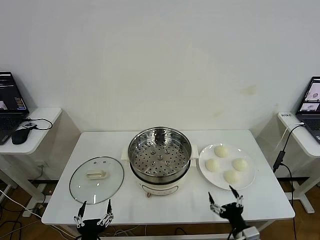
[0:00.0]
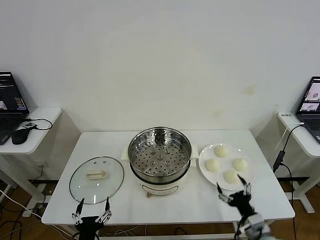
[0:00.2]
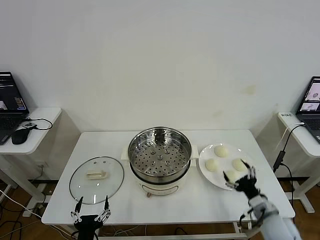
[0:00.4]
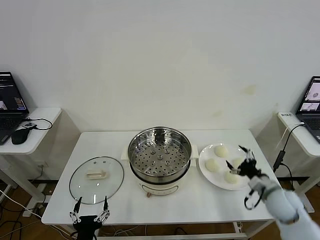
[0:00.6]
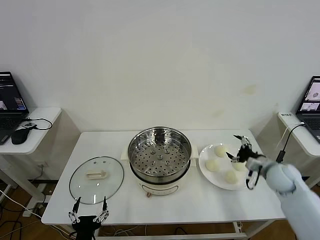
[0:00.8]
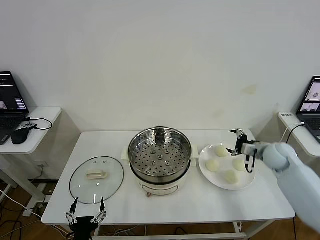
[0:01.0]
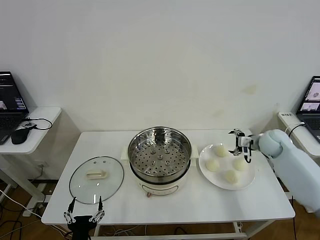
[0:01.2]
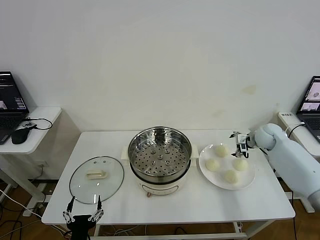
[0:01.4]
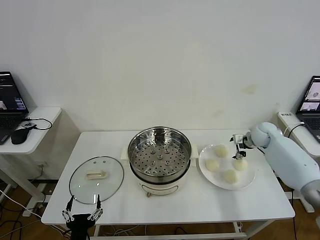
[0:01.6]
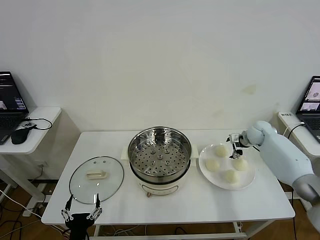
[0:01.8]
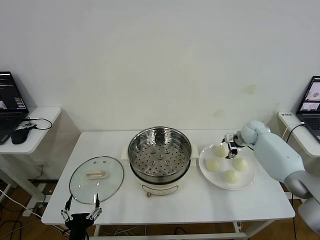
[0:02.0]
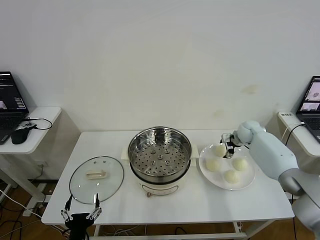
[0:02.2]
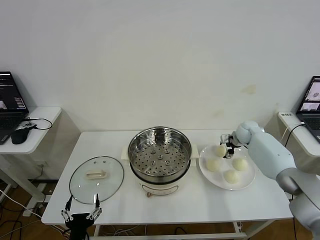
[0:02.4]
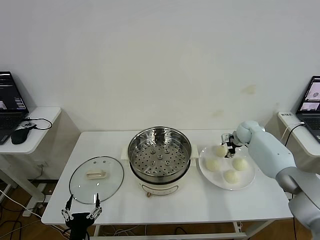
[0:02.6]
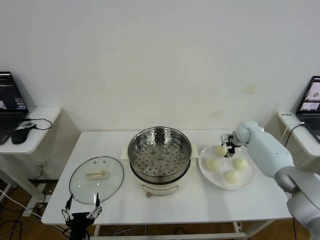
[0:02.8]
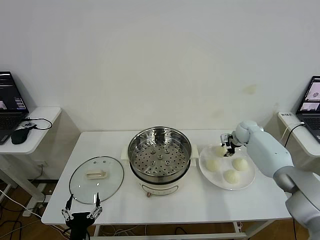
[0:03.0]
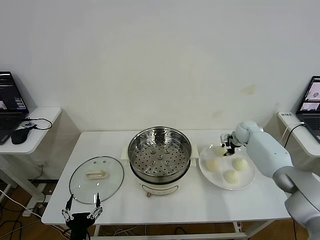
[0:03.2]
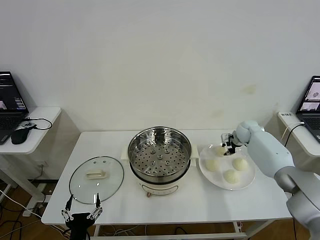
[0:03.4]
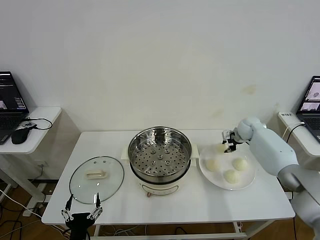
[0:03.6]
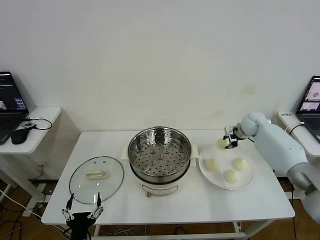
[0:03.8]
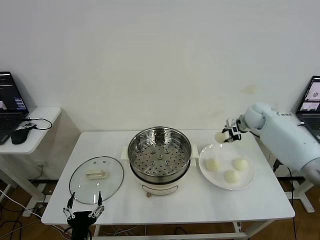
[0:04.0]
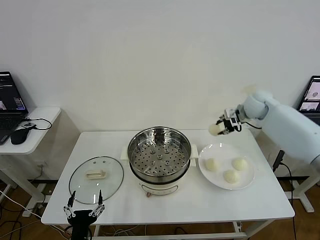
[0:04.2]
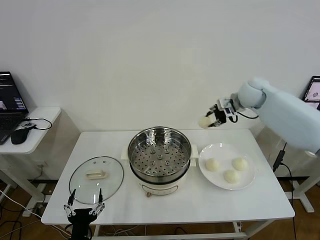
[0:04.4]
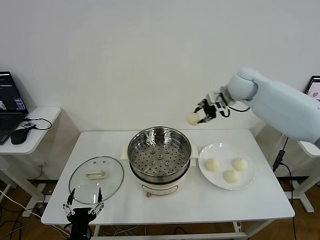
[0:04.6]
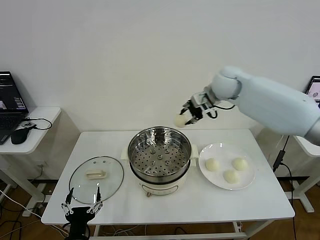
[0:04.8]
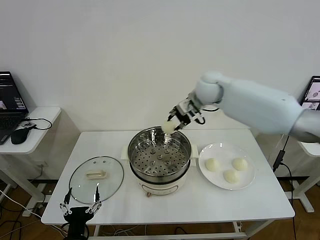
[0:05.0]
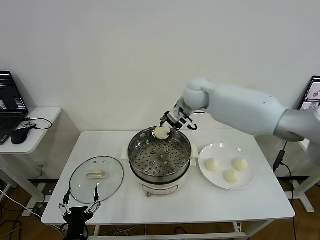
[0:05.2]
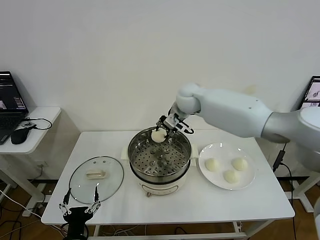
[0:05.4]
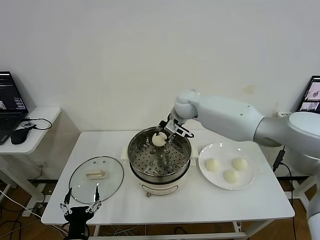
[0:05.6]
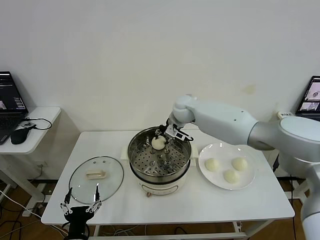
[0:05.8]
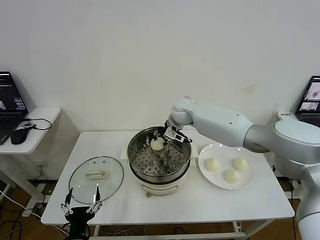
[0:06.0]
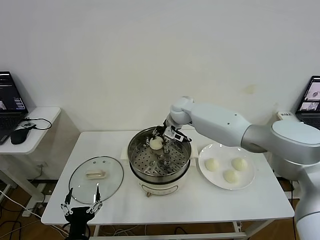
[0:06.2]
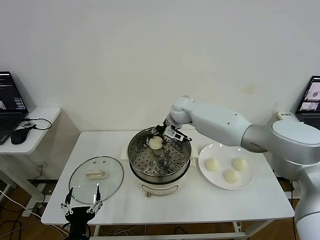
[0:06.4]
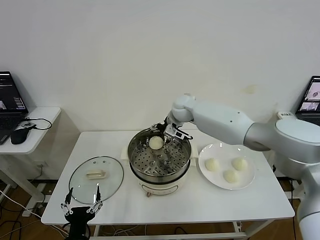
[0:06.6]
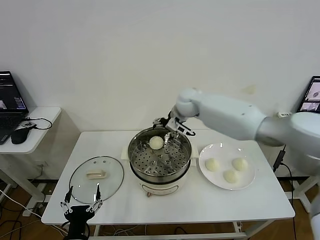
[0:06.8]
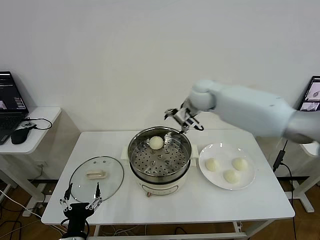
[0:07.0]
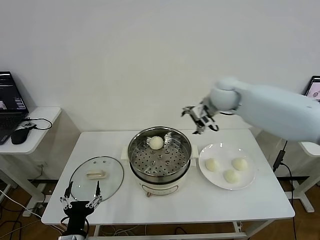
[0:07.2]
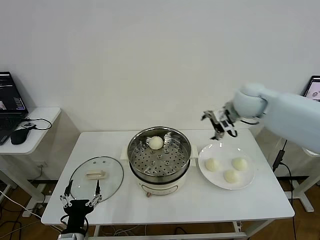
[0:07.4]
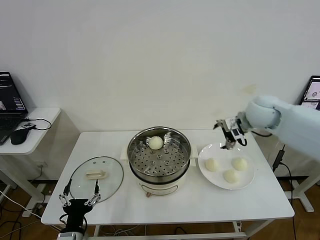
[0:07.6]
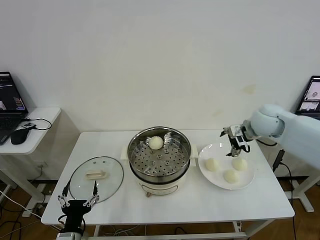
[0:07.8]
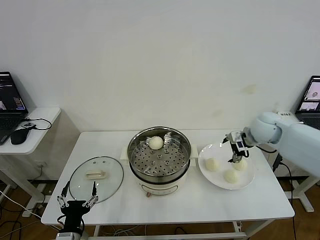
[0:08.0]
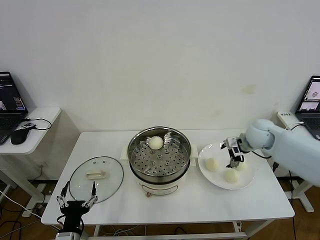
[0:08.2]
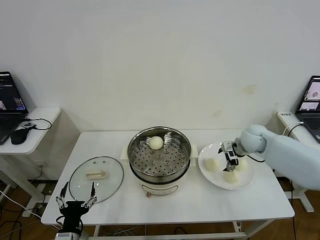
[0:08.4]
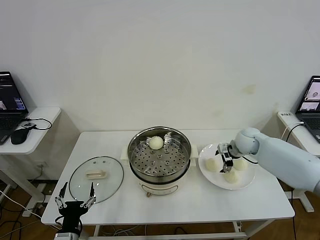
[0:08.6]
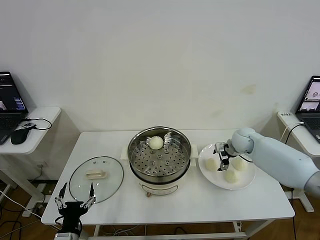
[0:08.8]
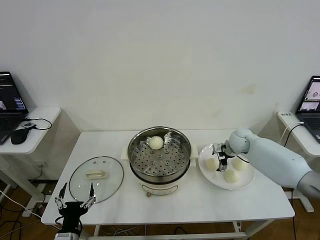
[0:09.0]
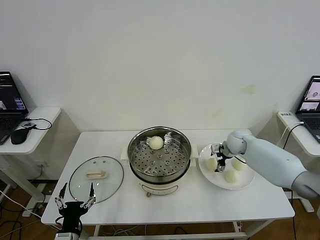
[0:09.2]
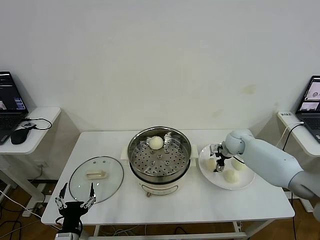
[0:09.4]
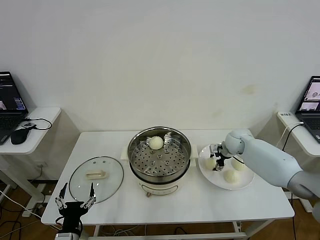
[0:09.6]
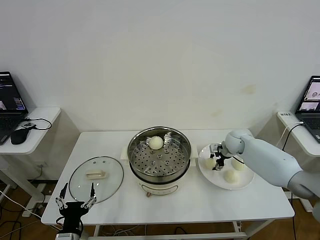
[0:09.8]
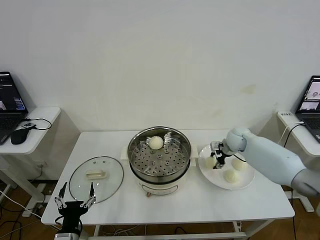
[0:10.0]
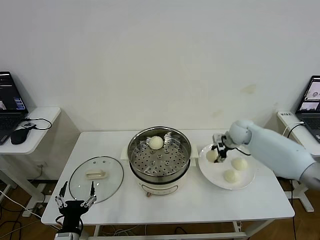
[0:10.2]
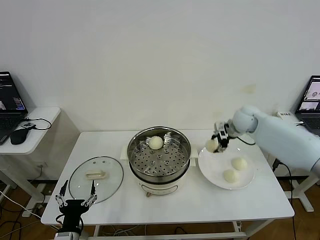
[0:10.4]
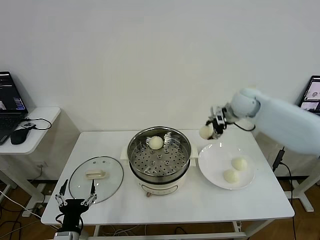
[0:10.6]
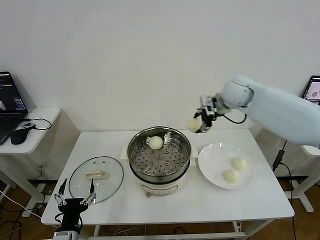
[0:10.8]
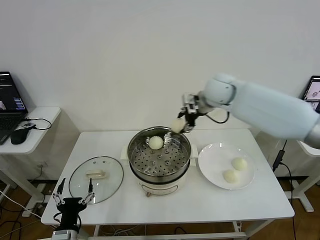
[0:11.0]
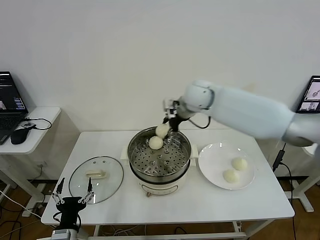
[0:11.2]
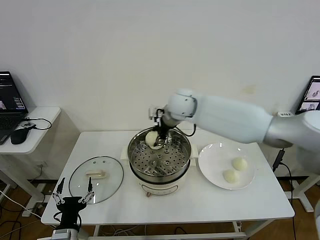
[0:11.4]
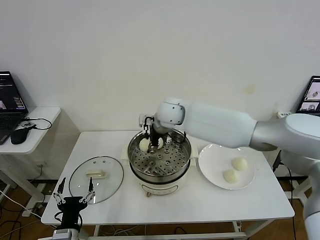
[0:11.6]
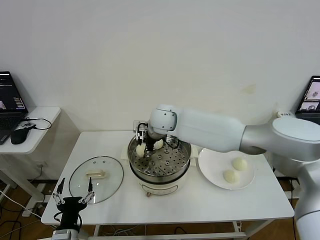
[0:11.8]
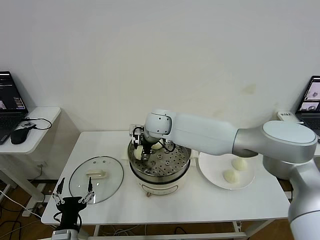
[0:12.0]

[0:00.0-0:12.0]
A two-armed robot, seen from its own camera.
Step, 0:00.0 to 0:03.2: Grasp the baozi in the plate with right gripper.
Step, 0:03.4 to 0:06.4: Place the baozi on the steamer with right gripper.
Step, 0:06.6 to 0:09.8: Grasp the baozi in the plate with right gripper.
0:01.6 to 0:03.0: The right gripper moves approximately 5 cm, and closes up.
0:03.0 to 0:04.4: The right gripper goes some 20 cm upward.
0:04.4 to 0:06.0: The right gripper goes roughly 25 cm to the left and downward.
0:06.0 to 0:07.6: The right gripper is displaced to the right and backward by approximately 25 cm, and opens its fingers.
0:07.6 to 0:09.0: The right gripper goes roughly 20 cm downward.
0:09.0 to 0:10.4: The right gripper is displaced upward by roughly 10 cm, and closes its fingers.
0:10.4 to 0:12.0: The right gripper goes about 30 cm to the left.

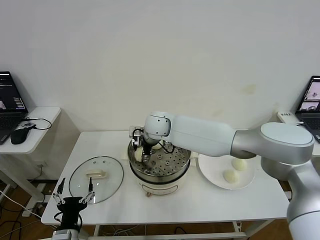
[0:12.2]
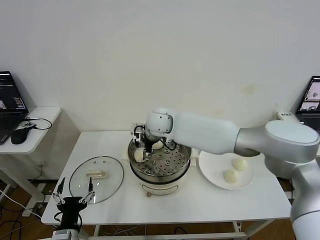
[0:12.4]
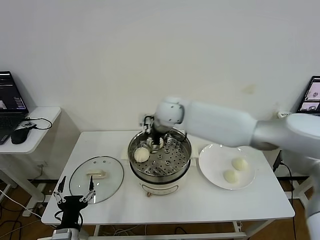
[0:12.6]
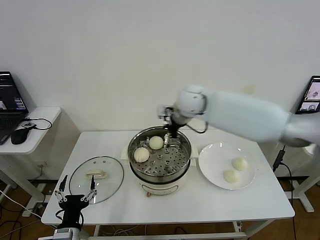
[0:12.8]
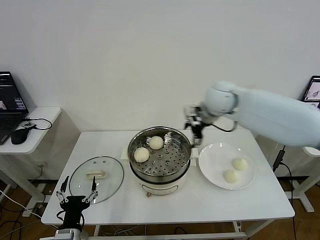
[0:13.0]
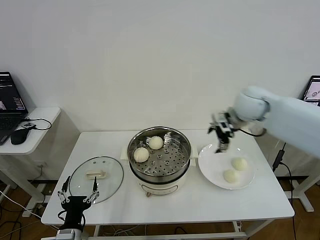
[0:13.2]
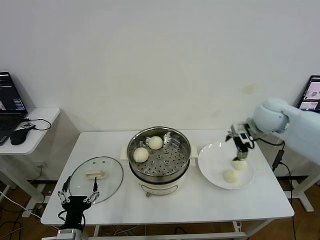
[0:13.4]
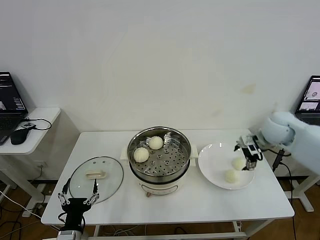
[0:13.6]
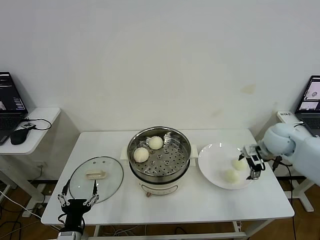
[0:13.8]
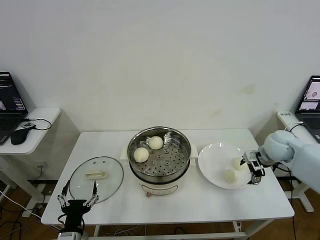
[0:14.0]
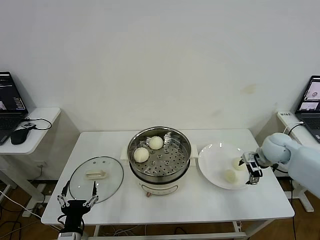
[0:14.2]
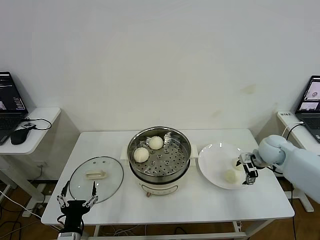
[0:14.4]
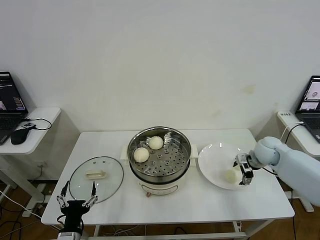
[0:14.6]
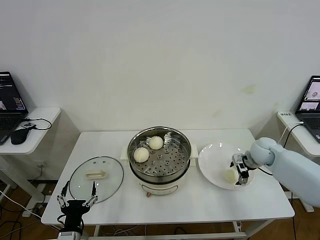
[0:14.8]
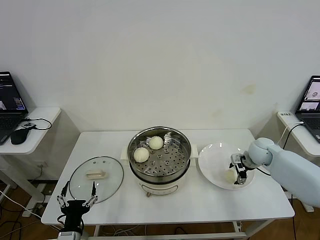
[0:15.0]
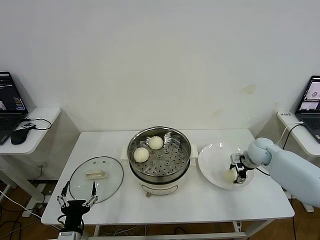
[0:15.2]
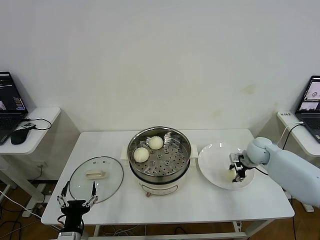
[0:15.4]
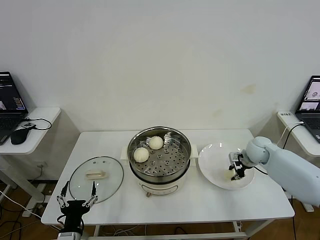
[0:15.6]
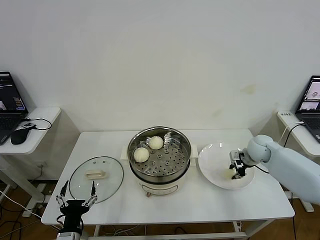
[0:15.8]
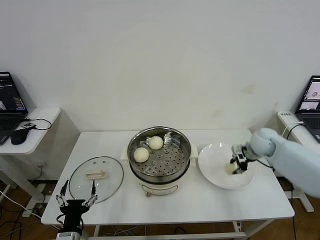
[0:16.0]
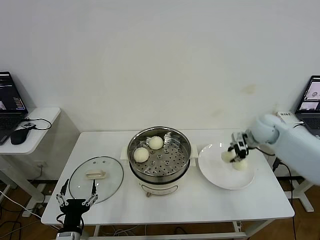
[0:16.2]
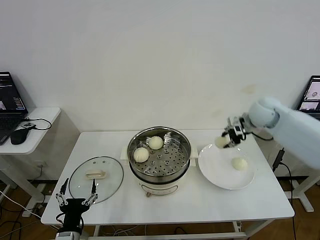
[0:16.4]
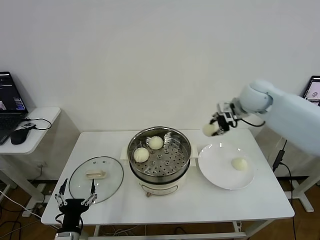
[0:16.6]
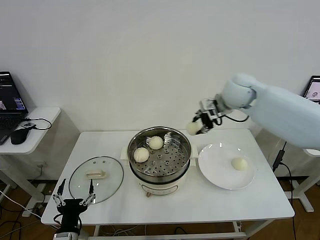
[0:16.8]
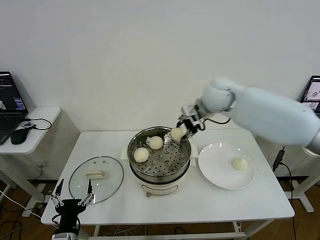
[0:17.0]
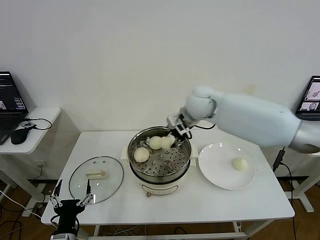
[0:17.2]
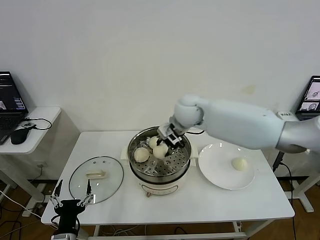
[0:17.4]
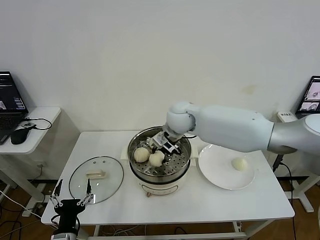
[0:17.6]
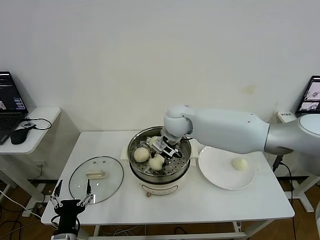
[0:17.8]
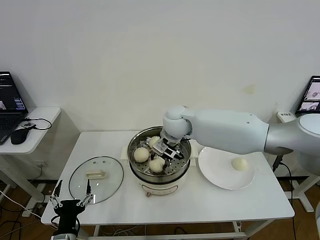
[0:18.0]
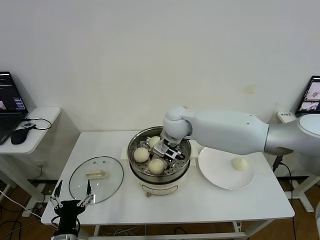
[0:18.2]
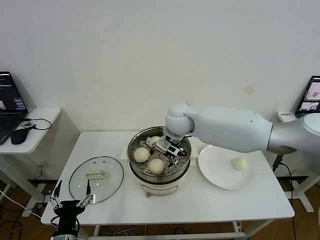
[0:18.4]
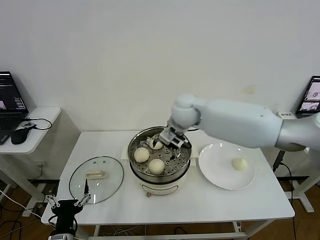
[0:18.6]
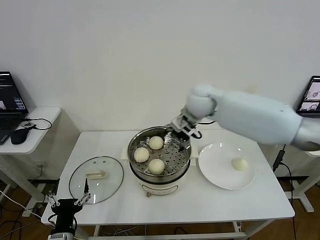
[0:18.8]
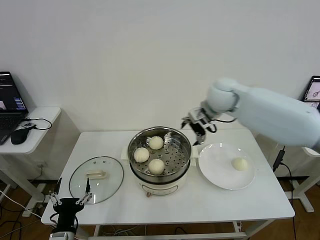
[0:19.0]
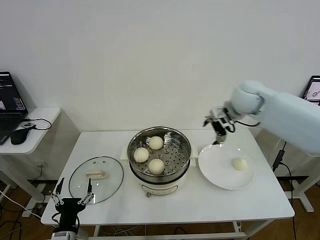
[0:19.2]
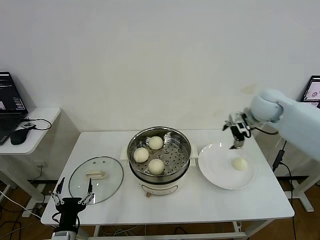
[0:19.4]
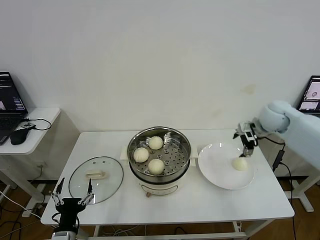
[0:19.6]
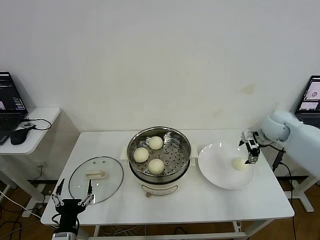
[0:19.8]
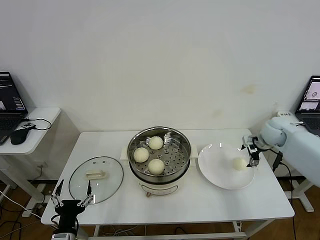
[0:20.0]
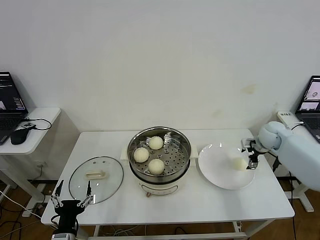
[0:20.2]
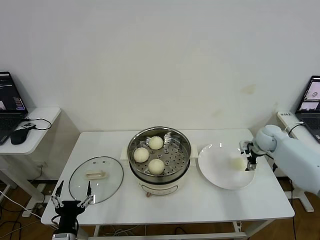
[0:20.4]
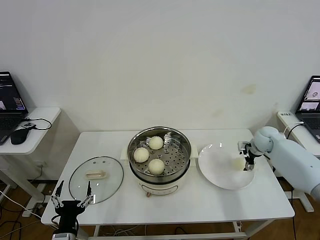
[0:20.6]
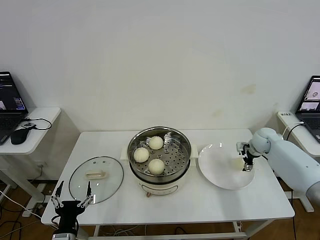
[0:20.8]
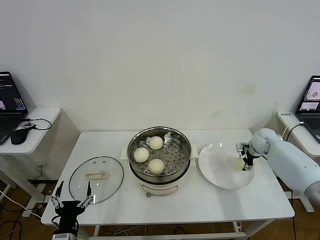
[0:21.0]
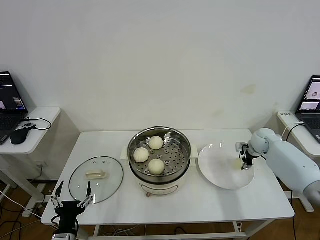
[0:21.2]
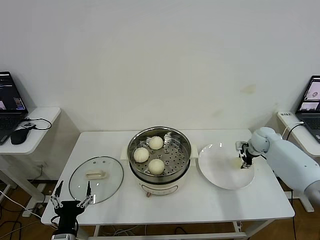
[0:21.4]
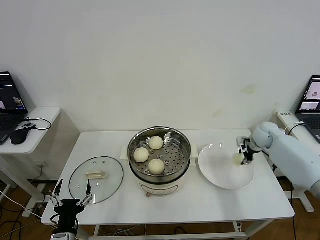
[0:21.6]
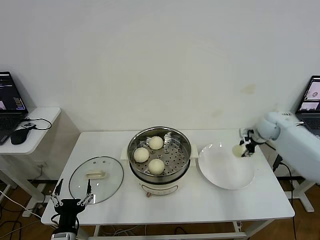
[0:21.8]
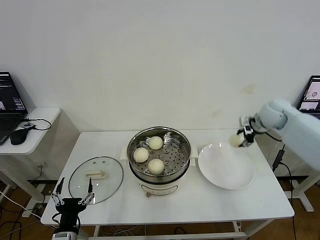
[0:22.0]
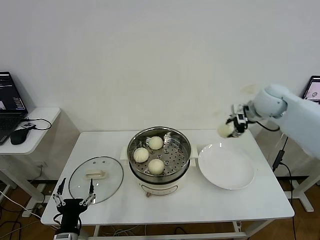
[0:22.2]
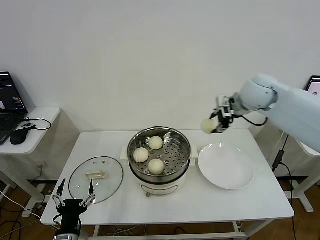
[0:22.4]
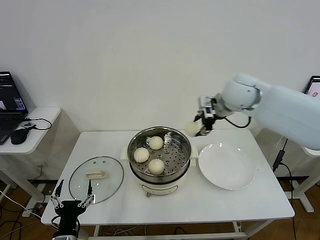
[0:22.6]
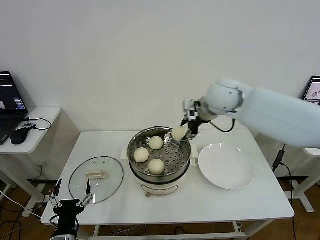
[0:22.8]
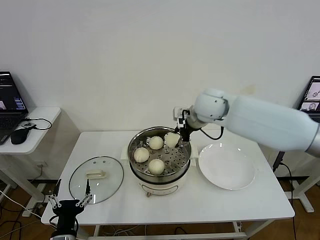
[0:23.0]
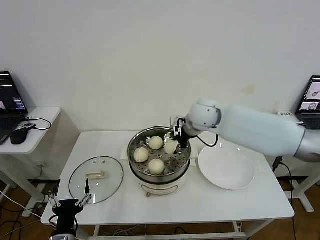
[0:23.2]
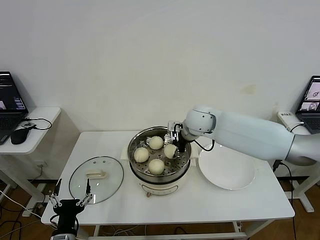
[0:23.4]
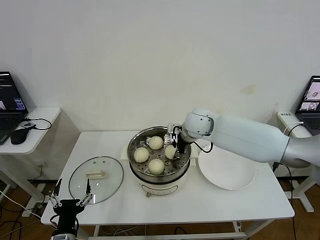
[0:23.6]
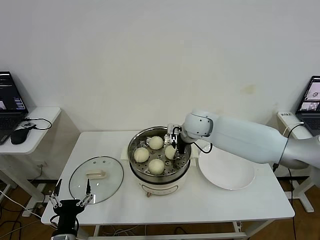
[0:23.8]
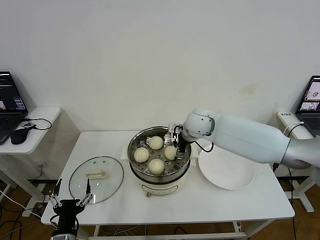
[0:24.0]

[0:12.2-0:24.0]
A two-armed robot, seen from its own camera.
Step, 0:12.4 to 0:15.6: Grasp the baozi in the plate with right gripper.
Step, 0:15.8 to 0:18.2: Place the baozi on the steamer with right gripper.
Step, 0:18.4 to 0:21.2: Grasp the baozi in the plate with right gripper.
Step, 0:21.6 to 0:24.0: Place the baozi on the steamer with right gripper.
0:12.2 to 0:13.6: The right gripper is displaced to the right by about 40 cm.
0:13.6 to 0:15.2: The right gripper shifts approximately 15 cm downward, and closes up.
0:15.2 to 0:16.6: The right gripper travels upward and to the left by approximately 25 cm, and closes.
0:16.6 to 0:18.2: The right gripper moves to the left, roughly 25 cm, and opens its fingers.
0:18.2 to 0:19.6: The right gripper is displaced to the right by approximately 30 cm.
0:19.6 to 0:21.0: The right gripper shifts approximately 15 cm downward.
0:21.0 to 0:22.6: The right gripper heads upward and to the left, covering some 30 cm.
0:22.6 to 0:24.0: The right gripper heads downward and to the left, covering about 15 cm, and opens up.
